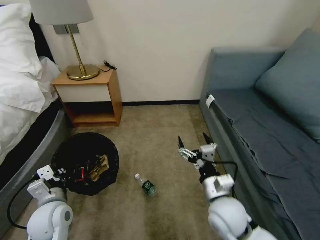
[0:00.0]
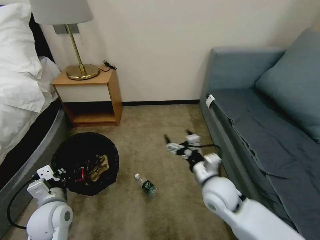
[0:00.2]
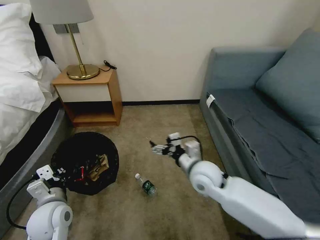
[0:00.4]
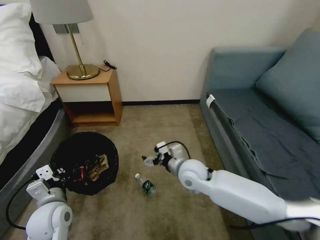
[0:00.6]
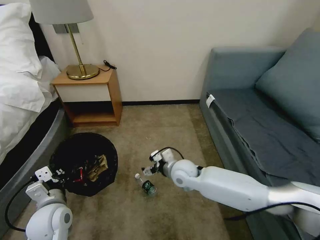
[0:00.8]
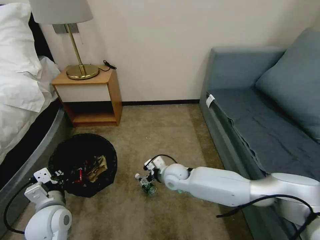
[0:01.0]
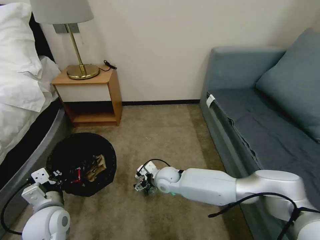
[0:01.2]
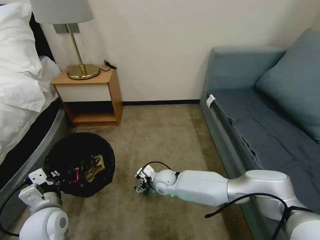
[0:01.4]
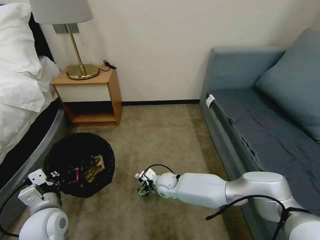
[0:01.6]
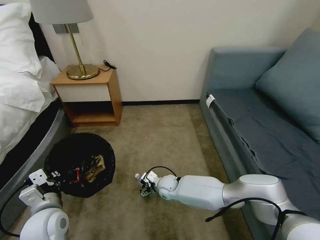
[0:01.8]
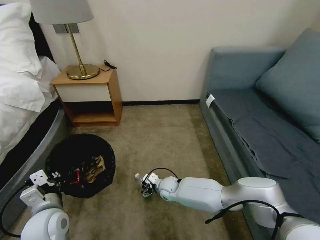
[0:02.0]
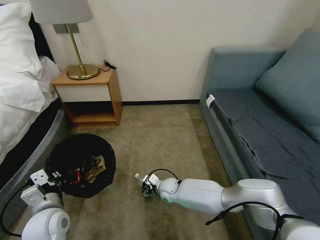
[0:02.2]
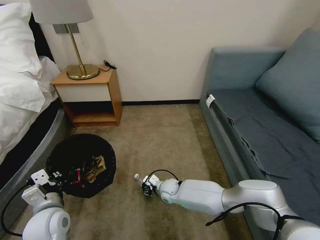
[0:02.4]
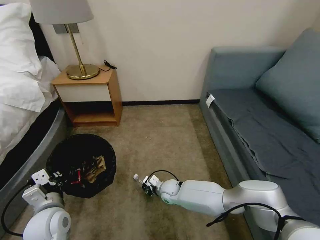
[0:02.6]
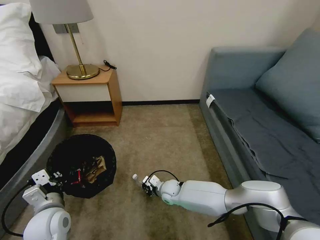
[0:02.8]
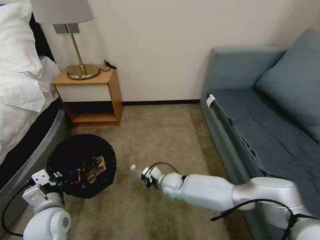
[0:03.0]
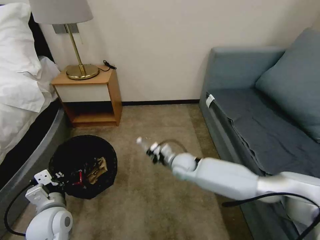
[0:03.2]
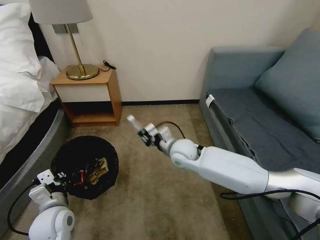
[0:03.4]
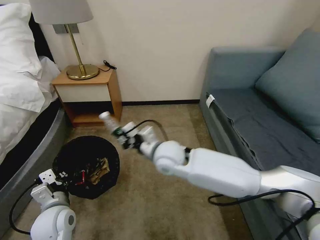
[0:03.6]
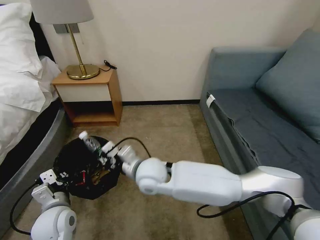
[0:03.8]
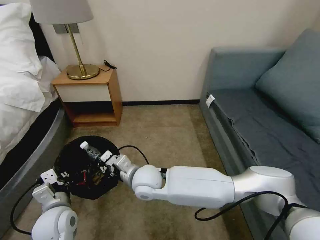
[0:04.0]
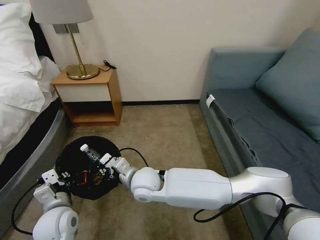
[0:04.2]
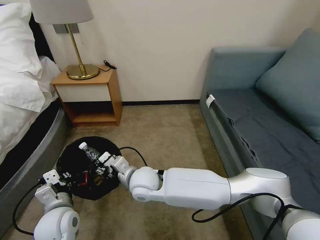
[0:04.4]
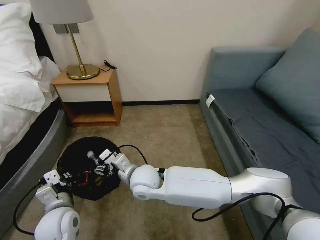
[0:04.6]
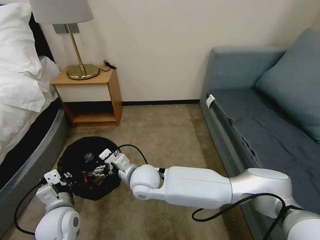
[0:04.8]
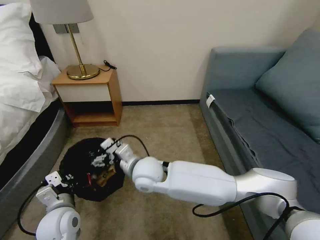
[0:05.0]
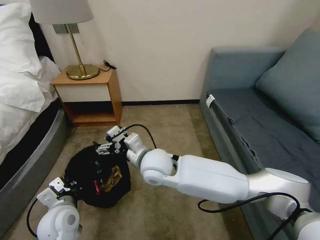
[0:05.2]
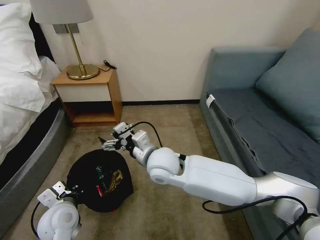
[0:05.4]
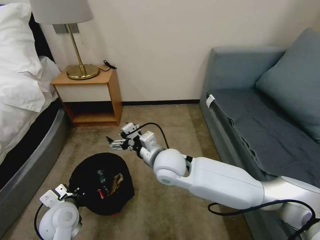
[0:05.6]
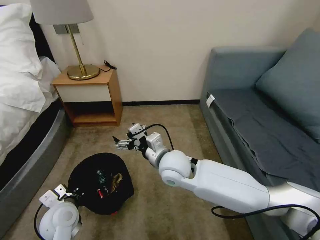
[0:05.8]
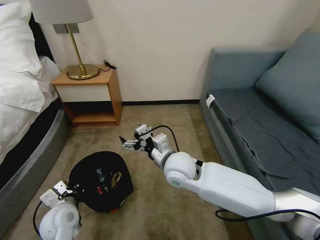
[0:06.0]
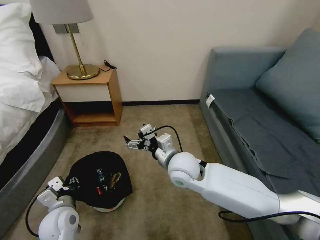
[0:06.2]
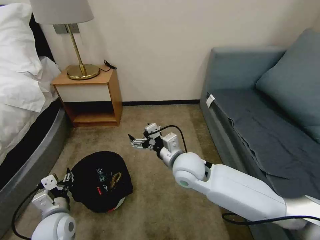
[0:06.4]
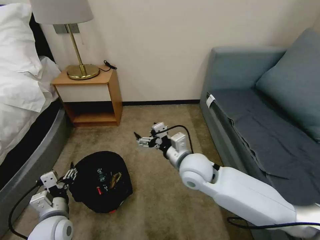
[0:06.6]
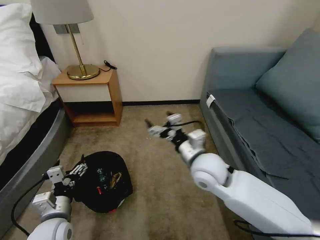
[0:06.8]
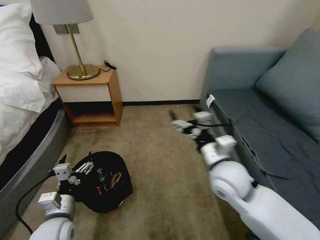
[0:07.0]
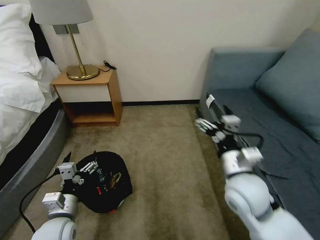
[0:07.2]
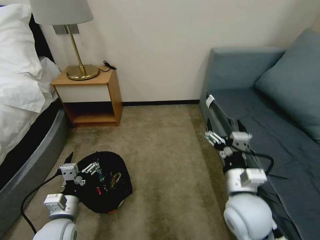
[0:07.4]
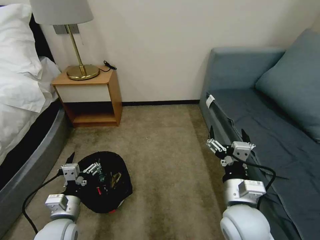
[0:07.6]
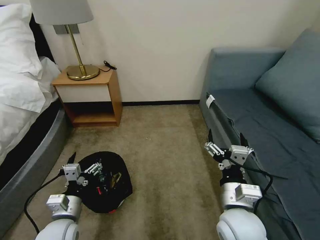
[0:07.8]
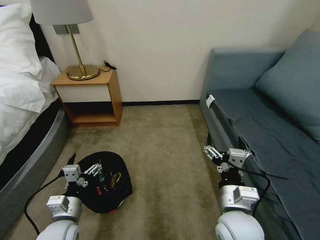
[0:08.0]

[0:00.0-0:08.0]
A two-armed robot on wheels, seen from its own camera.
Task of the whole recording: Pick up the trash bin, then pick up the garbage on the floor and place it into the trash bin.
0:00.0 to 0:01.6: The right gripper shifts about 25 cm downward, forward and to the left.
0:01.6 to 0:03.2: The right gripper heads upward and to the right, covering about 10 cm, and closes its fingers.
0:03.2 to 0:04.8: The right gripper goes about 20 cm to the left, upward and backward, and opens up.
0:04.8 to 0:06.4: The left gripper opens. The right gripper moves to the right, some 15 cm.
0:06.4 to 0:08.0: The right gripper shifts approximately 20 cm backward and to the right. The left gripper opens its fingers.
